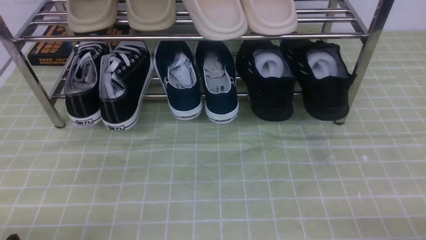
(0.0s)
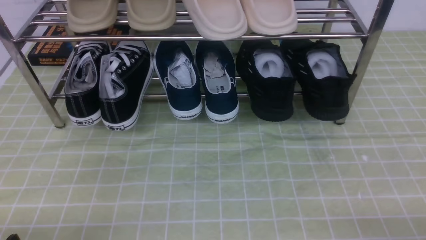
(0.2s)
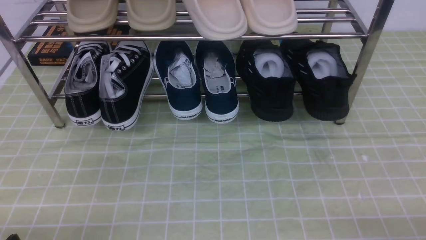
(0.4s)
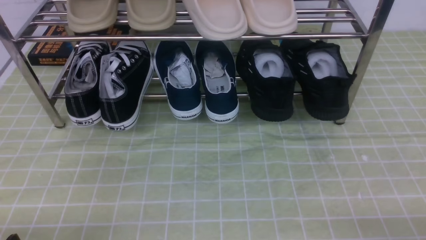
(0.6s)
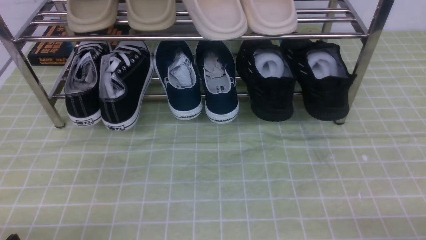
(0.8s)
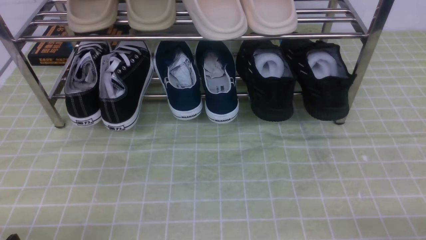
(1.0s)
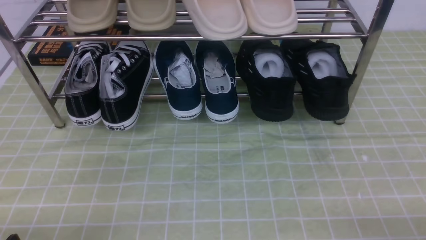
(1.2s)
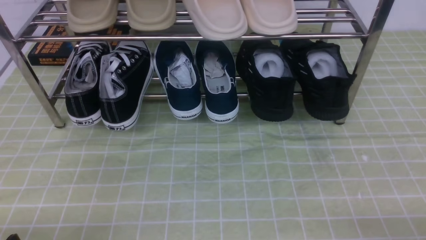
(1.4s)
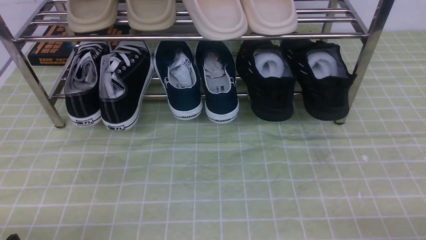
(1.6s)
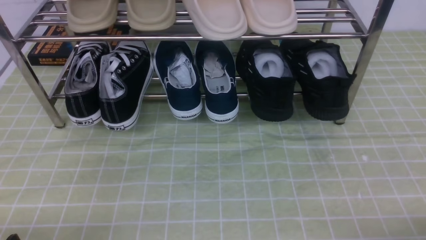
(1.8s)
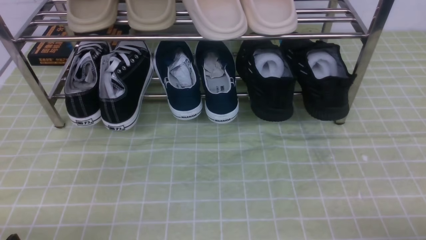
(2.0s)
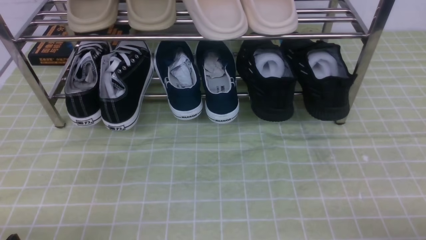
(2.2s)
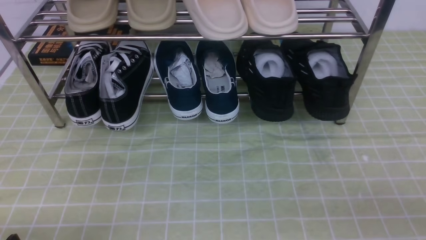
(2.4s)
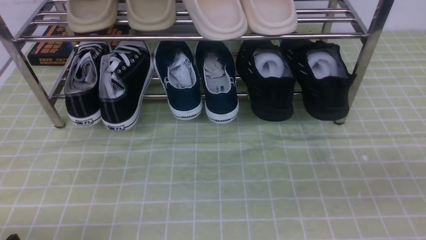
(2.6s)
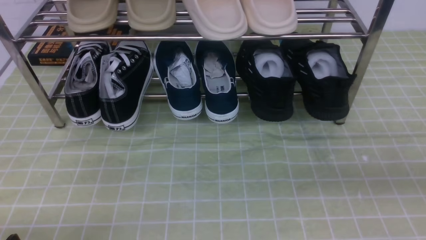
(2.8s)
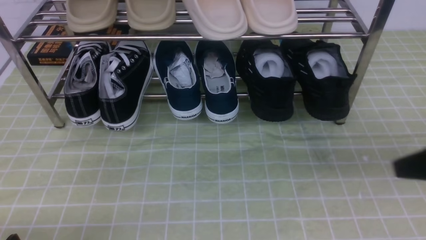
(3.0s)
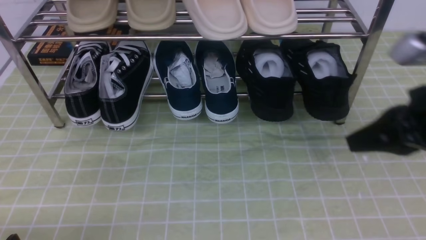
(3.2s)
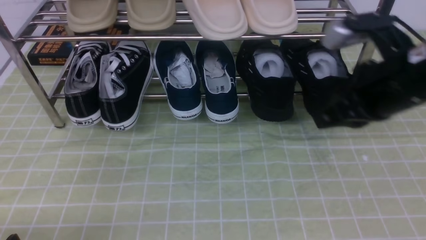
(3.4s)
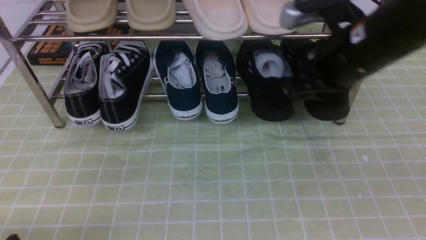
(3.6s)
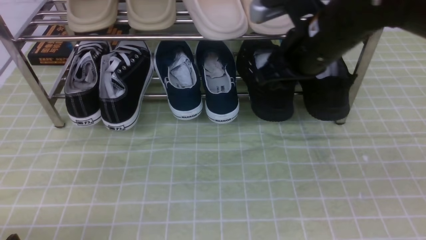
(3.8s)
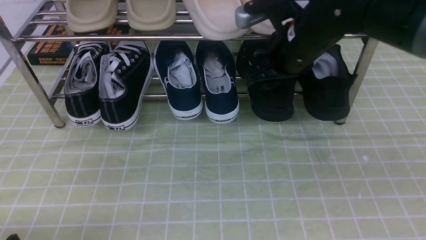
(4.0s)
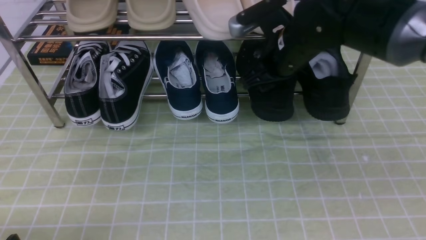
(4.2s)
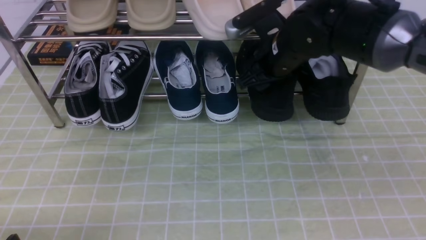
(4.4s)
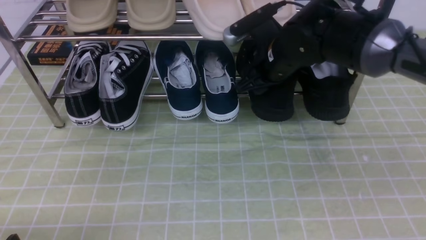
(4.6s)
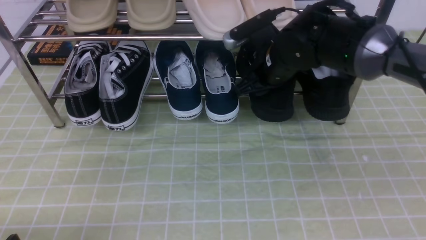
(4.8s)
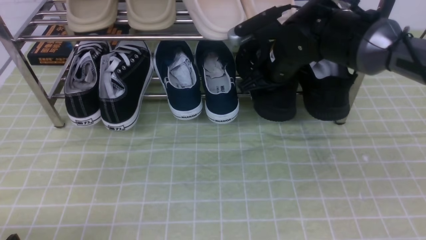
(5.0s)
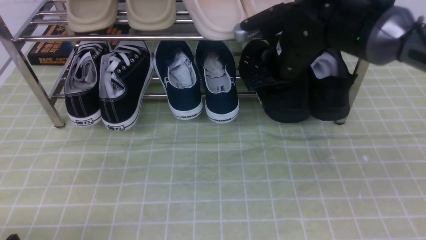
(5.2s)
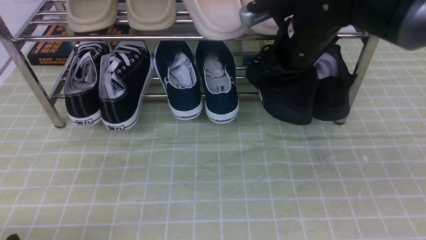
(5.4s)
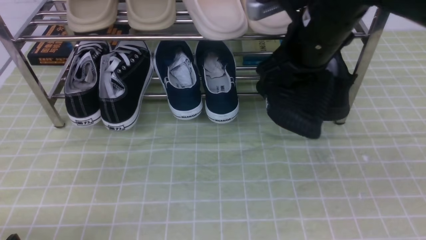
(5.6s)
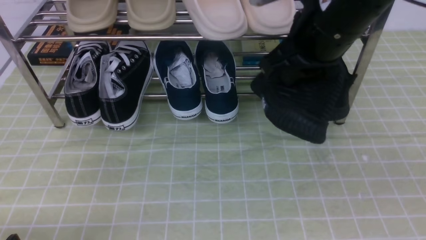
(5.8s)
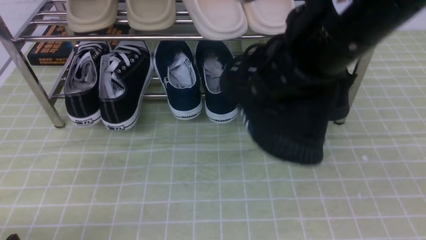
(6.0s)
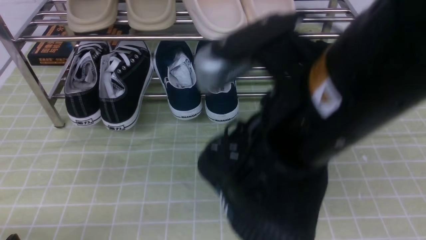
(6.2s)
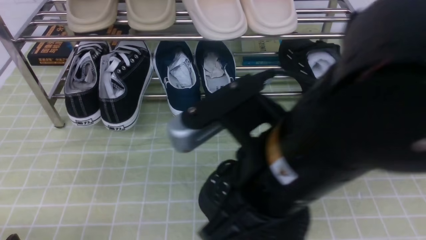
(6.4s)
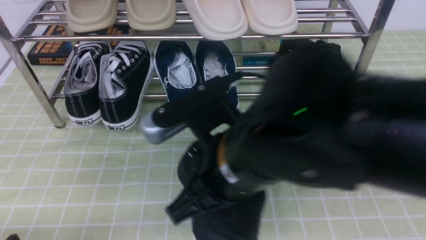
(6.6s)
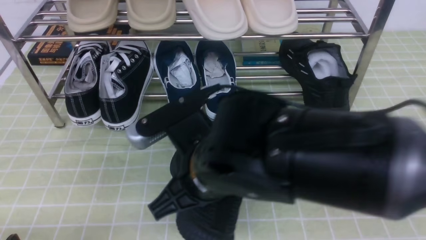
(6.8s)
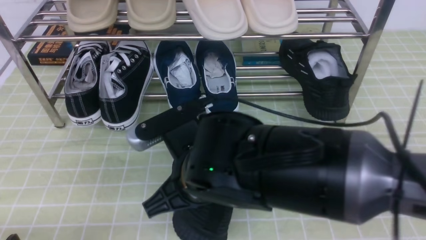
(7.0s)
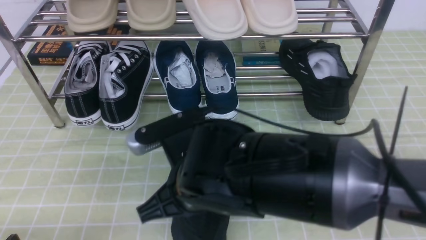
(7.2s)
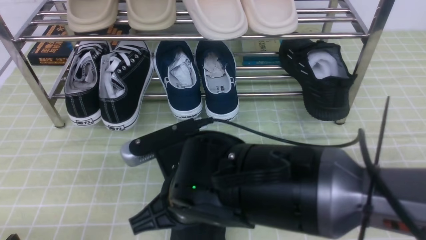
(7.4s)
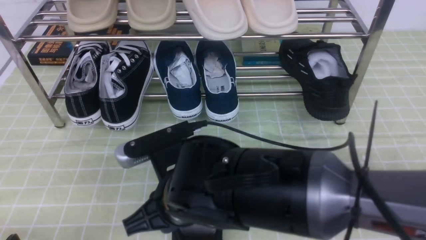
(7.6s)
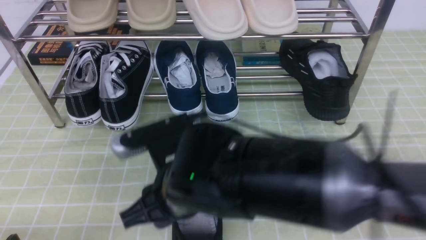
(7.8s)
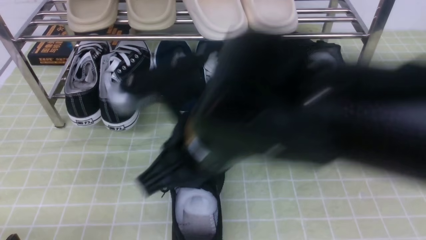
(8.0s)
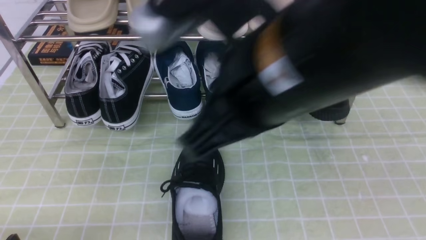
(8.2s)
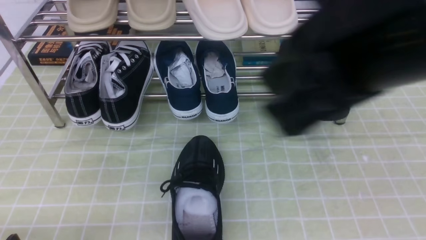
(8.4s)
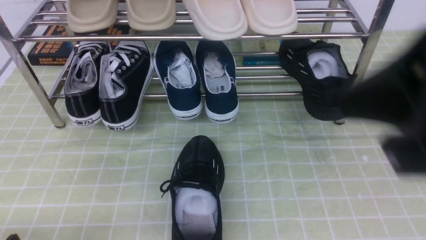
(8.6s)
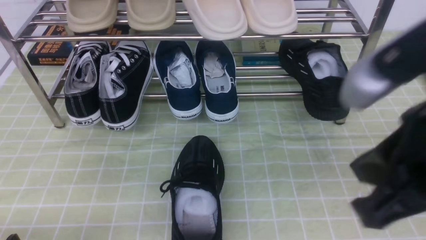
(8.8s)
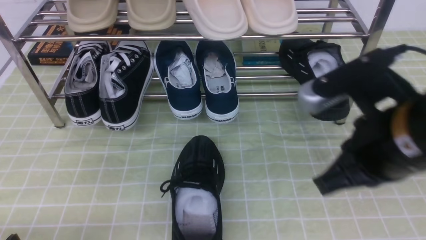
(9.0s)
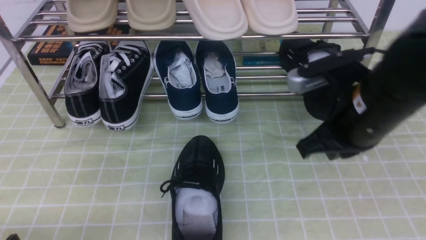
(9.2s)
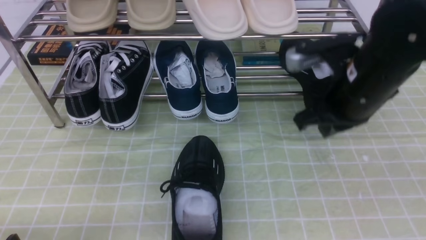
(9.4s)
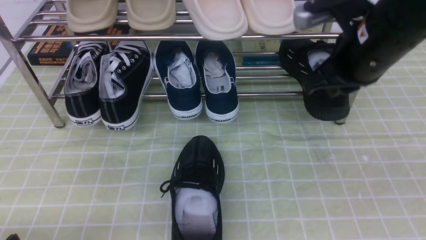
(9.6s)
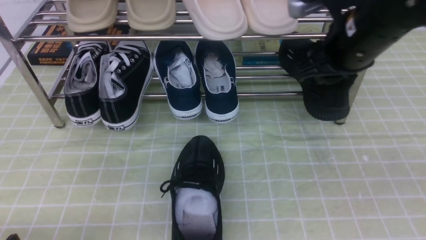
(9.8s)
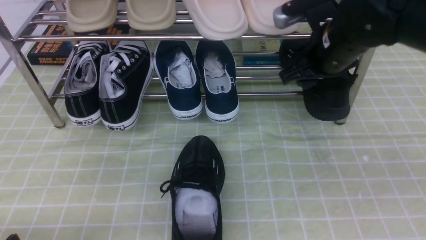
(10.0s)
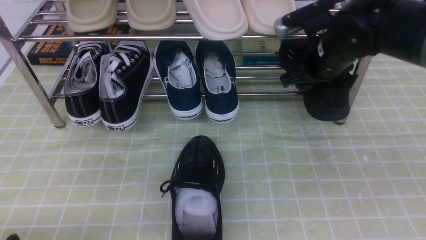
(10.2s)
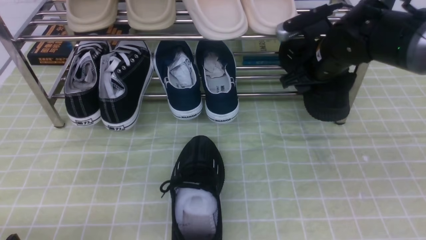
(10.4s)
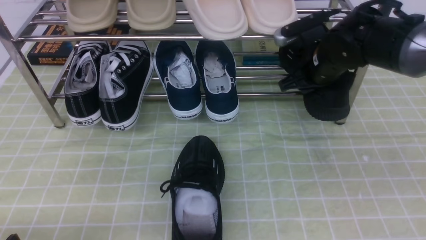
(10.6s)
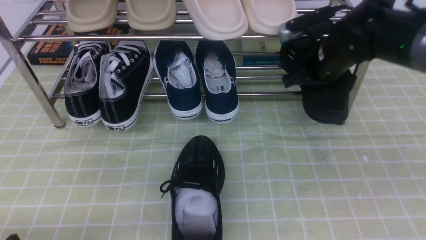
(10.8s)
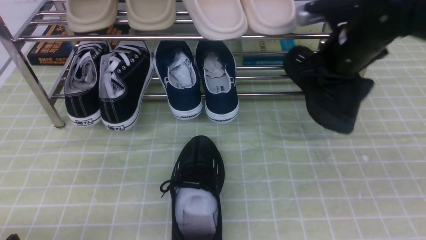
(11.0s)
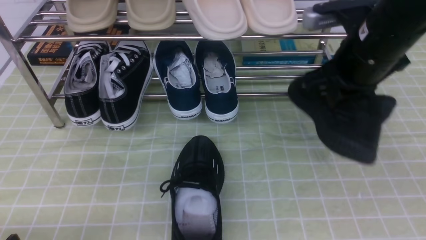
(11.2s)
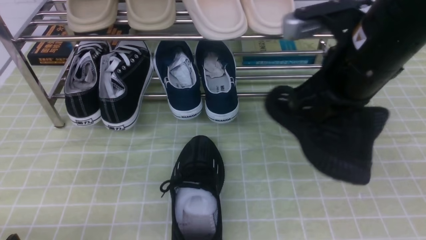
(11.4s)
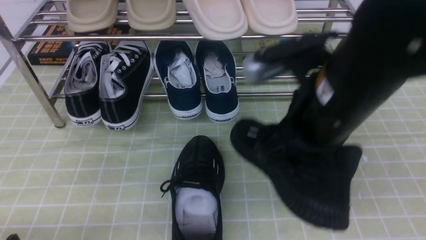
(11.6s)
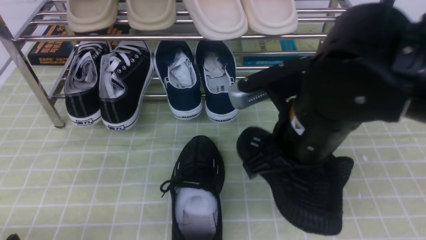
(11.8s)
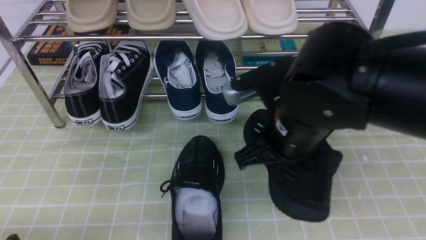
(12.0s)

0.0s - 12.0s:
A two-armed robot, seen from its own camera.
Step, 0.0s - 5.0s: use the right arm to clamp a shoe on the right side of the shoe rack.
Step, 5.2s - 7.4s: use the right arm to take out the clamped shoe from the shoe rack and put it down.
Step, 7.8s - 10.6s: use the right arm to clamp a shoe on the right side of the shoe rack.
1.6s - 3.0s: The right gripper shifts approximately 20 cm upward and forward, and closes its fingers.
3.0s - 4.4s: The right gripper shifts roughly 30 cm forward and to the left, and opens up.
4.4s - 6.0s: The right gripper heads backward and upward, covering roughly 20 cm, and closes up.
6.0s - 7.6s: The right gripper is displaced downward and to the left by about 20 cm, and opens up.
7.6s - 9.0s: The right gripper heads to the right and upward, covering about 20 cm, and closes.
9.0s - 10.4s: The right gripper shifts about 25 cm forward, and opens up.
10.4s - 12.0s: The right gripper shifts roughly 20 cm backward and to the left, and closes.

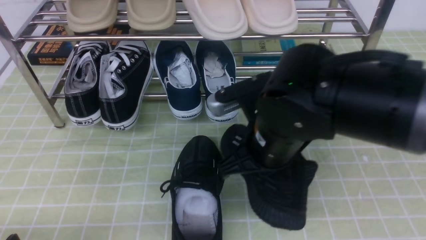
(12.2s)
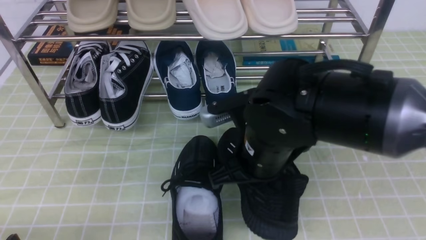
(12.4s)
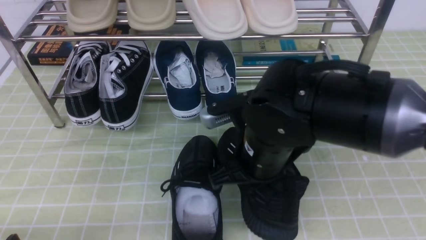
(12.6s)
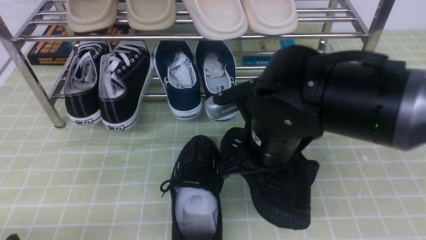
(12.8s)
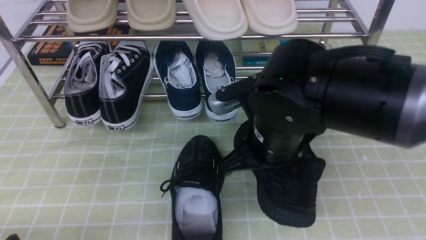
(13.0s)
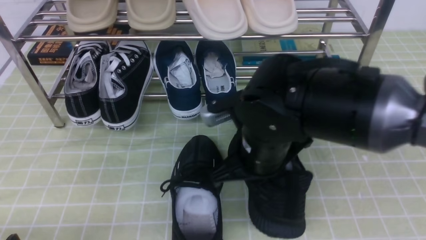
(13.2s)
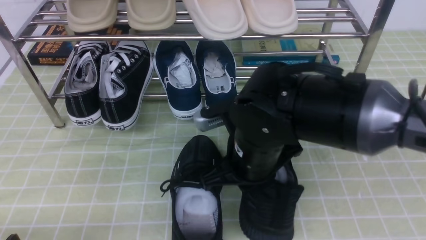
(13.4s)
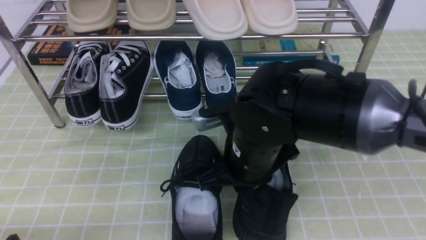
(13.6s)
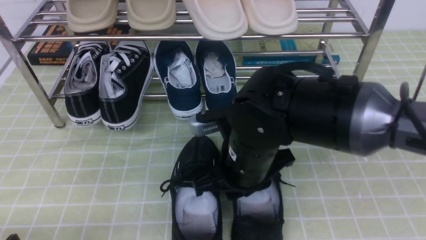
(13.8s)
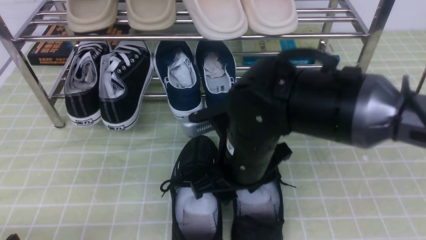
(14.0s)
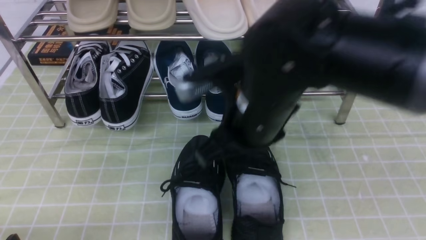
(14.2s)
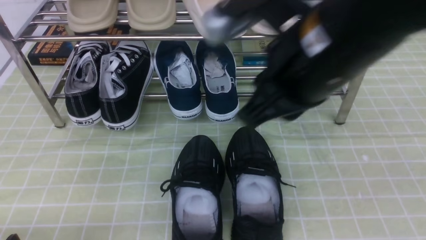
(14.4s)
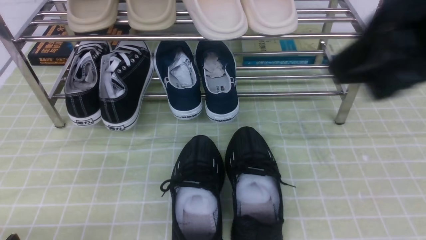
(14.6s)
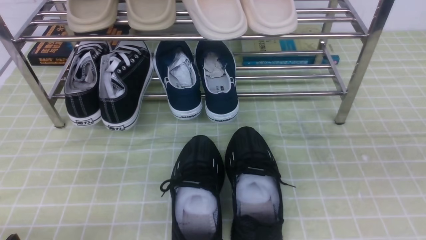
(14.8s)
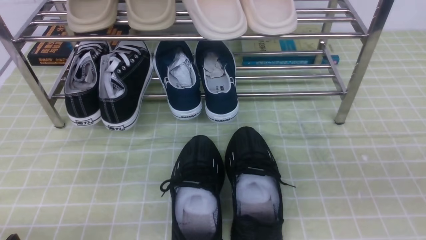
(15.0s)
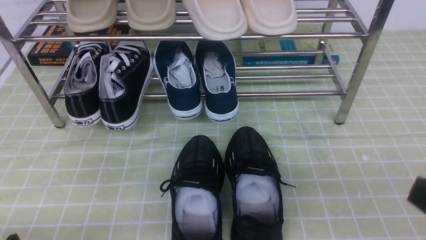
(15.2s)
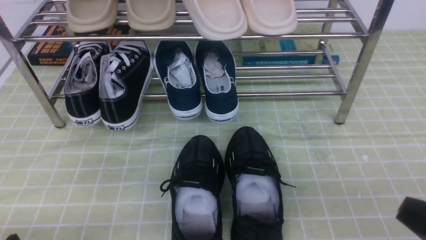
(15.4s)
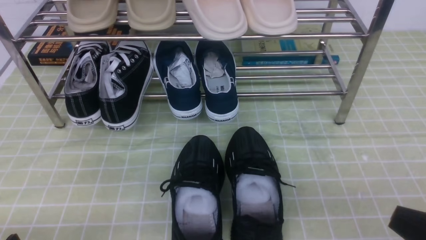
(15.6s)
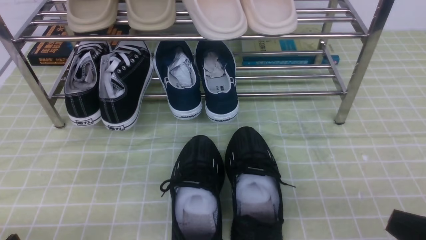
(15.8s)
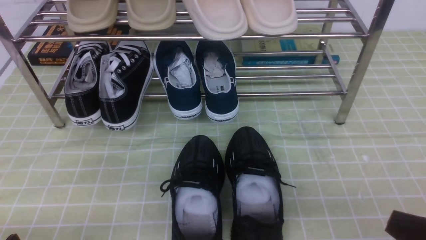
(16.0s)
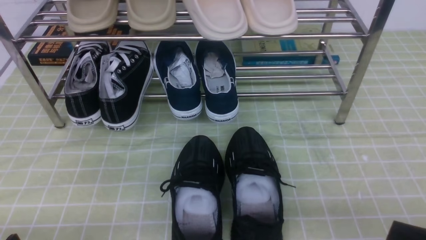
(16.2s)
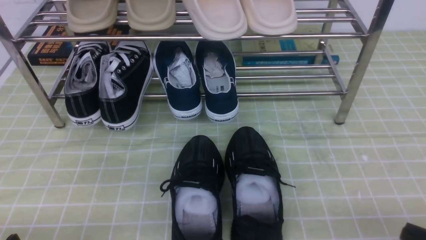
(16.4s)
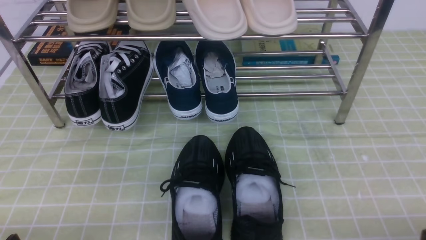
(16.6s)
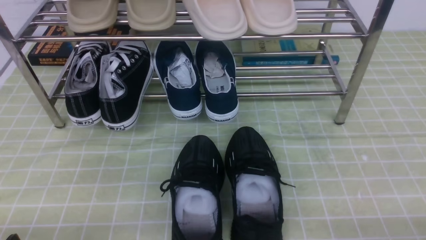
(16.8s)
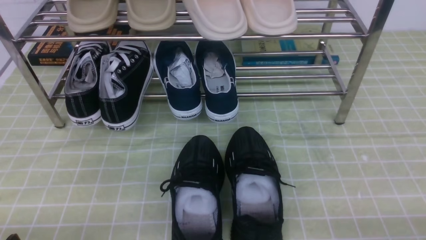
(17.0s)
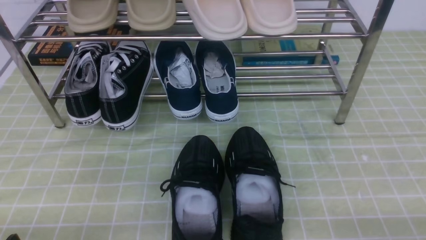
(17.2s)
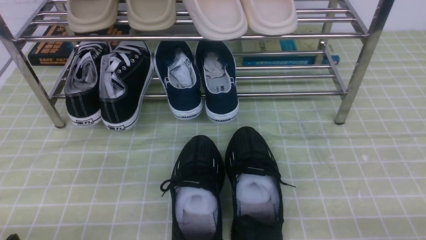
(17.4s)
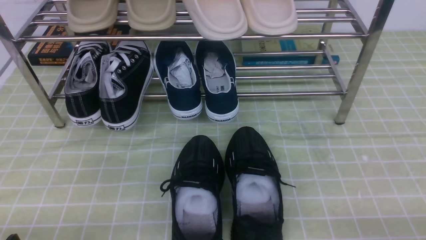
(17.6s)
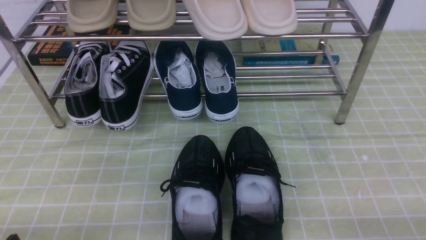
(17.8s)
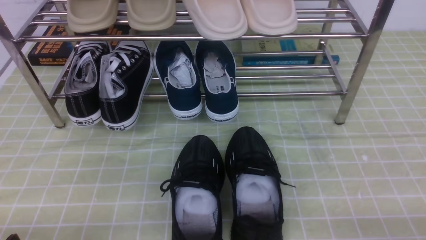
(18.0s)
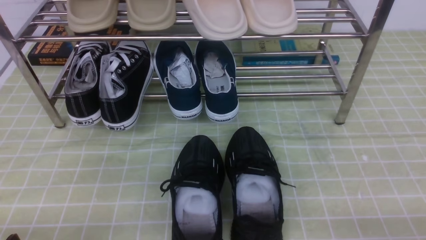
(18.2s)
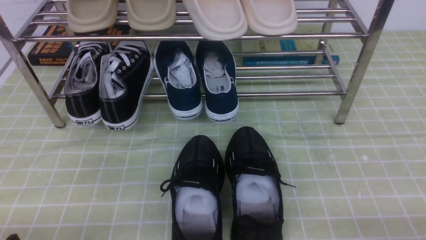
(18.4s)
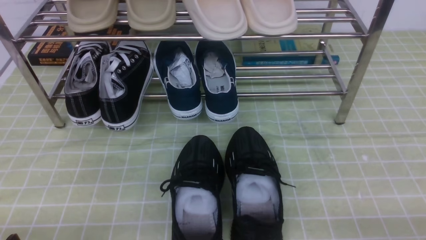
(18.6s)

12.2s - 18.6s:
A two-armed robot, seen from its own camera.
Step, 12.2s - 14.4s: use the right arm to take out the clamped shoe from the shoe rack and put it down.
12.2s - 13.8s: The right gripper opens.
13.8s - 15.4s: The right gripper heads to the right and backward, covering approximately 30 cm, and closes its fingers.
15.4s - 17.0s: The right gripper shifts about 10 cm downward and to the right.
